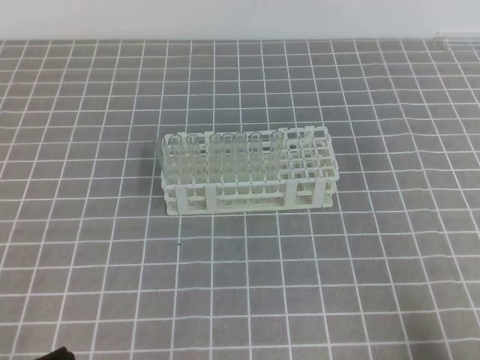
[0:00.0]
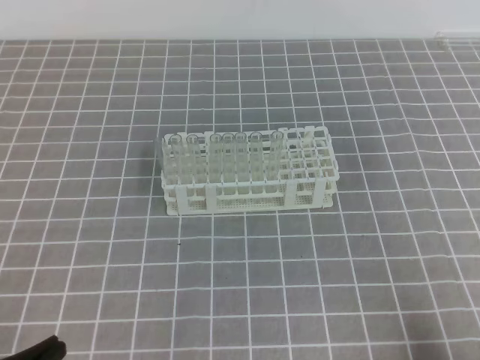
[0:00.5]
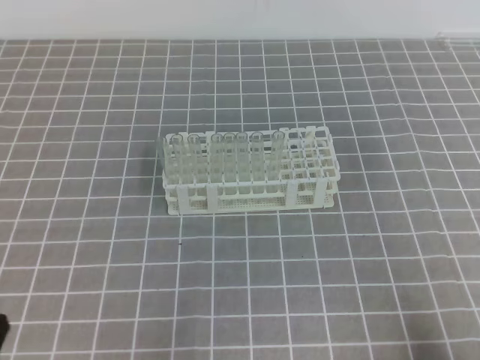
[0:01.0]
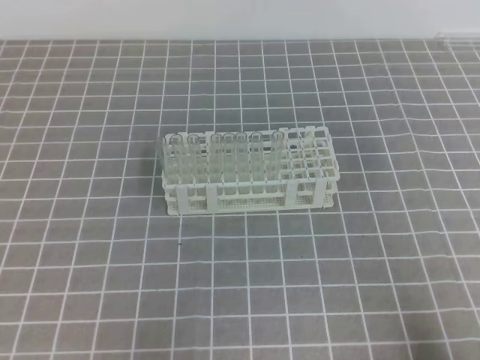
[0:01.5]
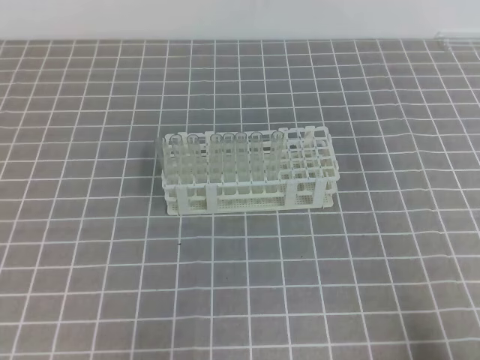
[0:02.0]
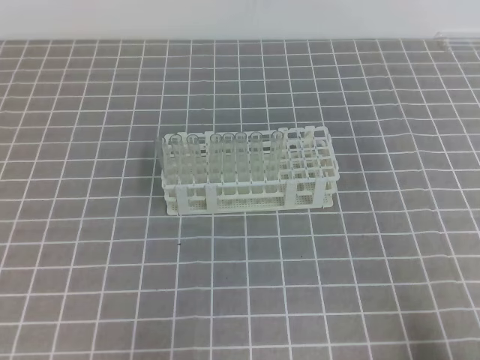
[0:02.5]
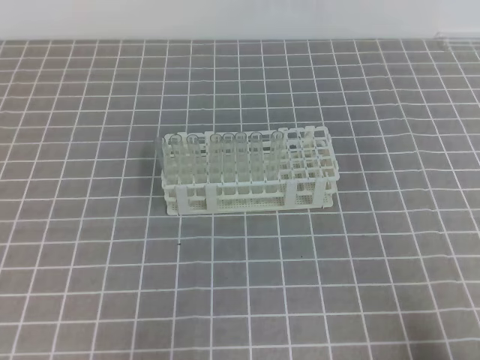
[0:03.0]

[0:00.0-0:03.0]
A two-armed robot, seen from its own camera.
0:01.5 to 0:03.0: Both grippers stay put.
